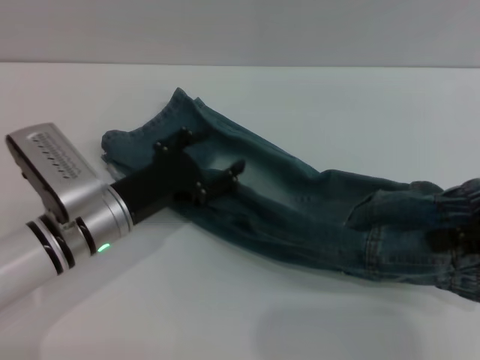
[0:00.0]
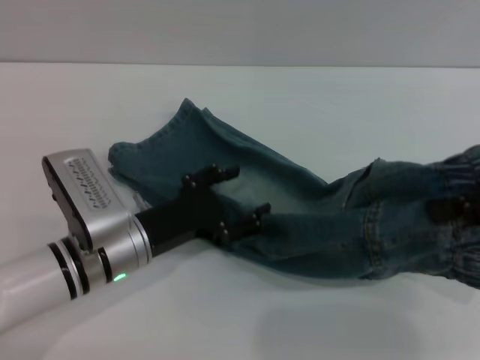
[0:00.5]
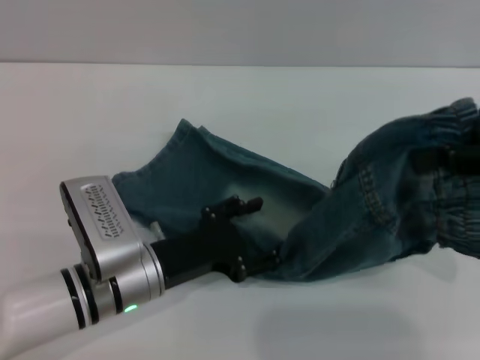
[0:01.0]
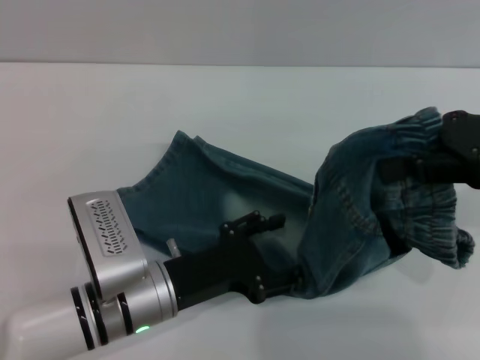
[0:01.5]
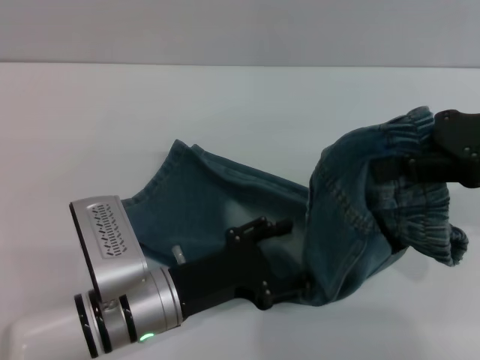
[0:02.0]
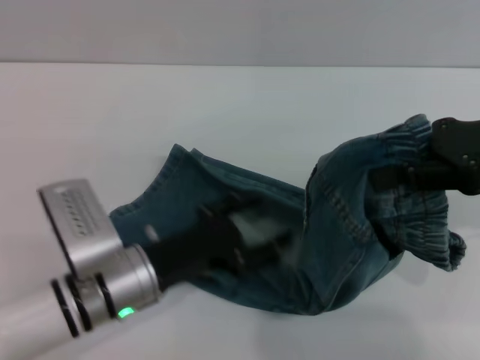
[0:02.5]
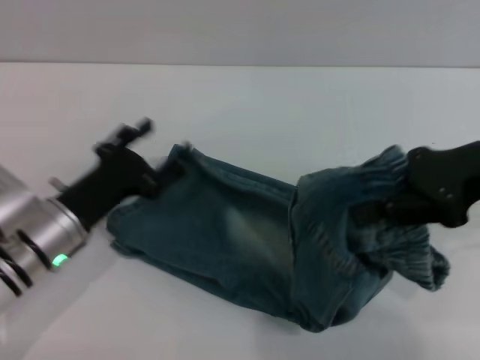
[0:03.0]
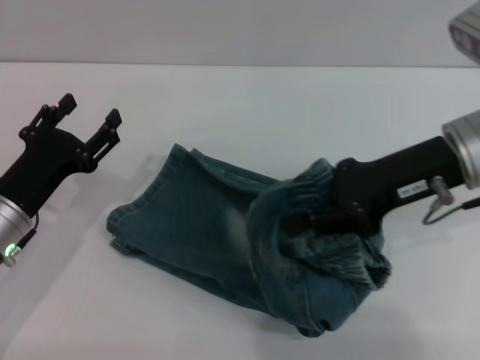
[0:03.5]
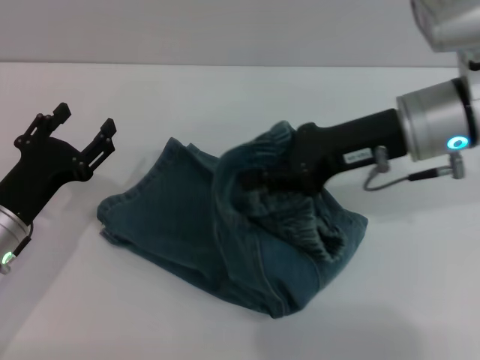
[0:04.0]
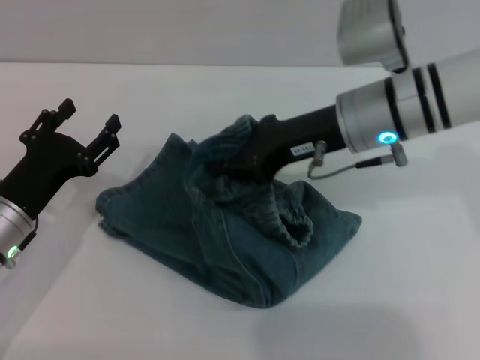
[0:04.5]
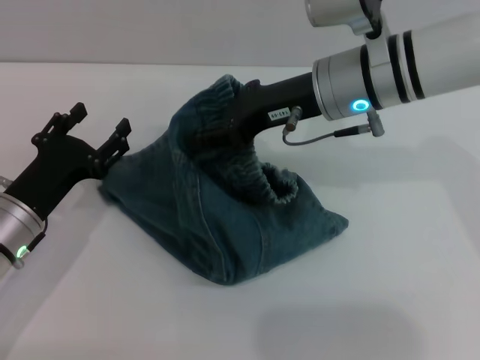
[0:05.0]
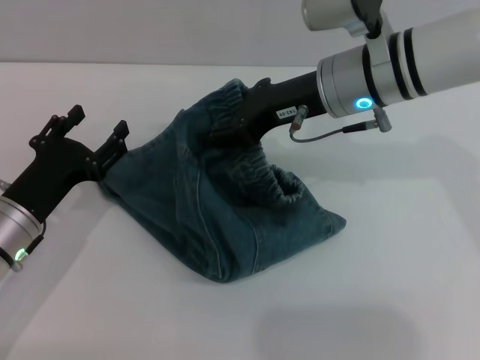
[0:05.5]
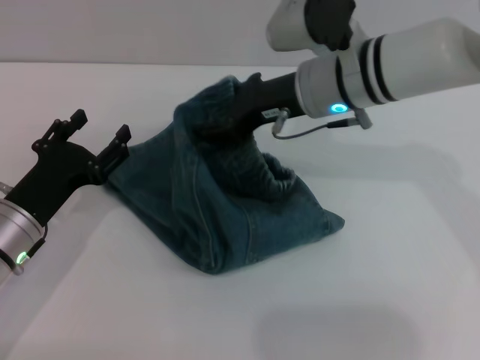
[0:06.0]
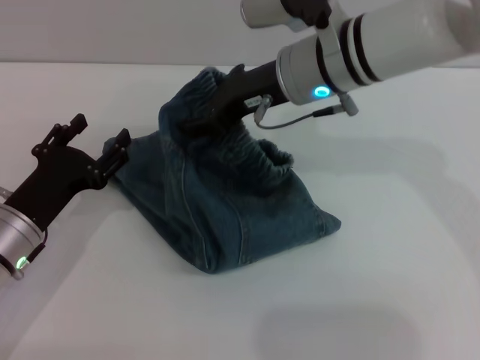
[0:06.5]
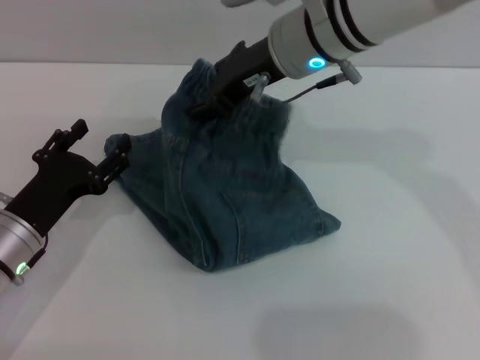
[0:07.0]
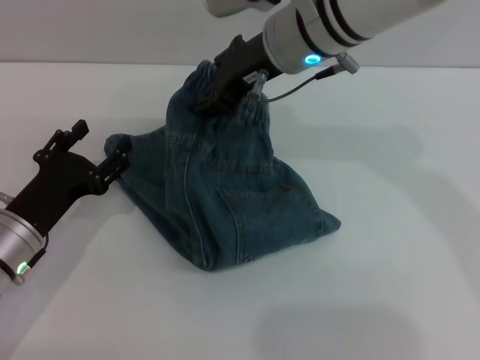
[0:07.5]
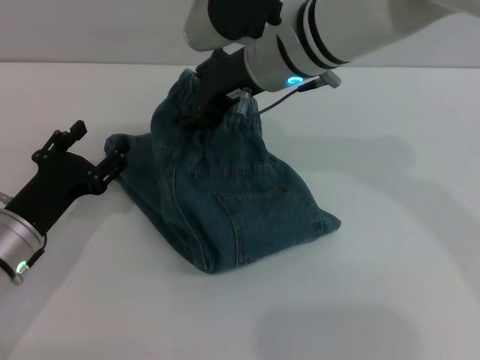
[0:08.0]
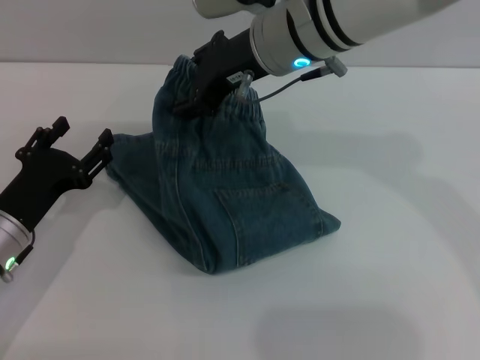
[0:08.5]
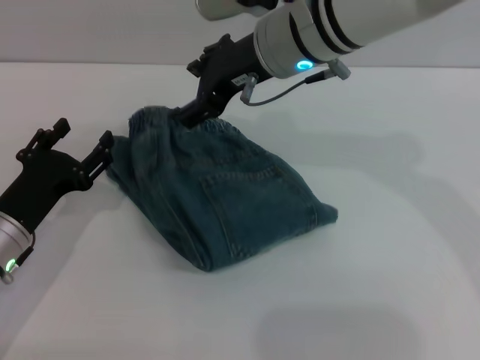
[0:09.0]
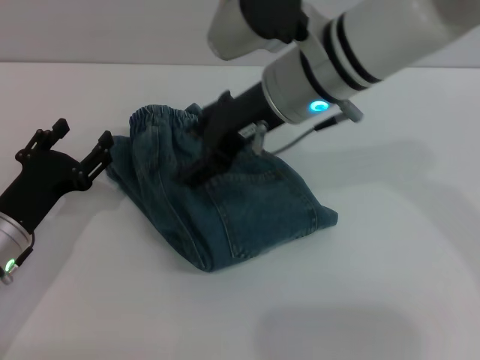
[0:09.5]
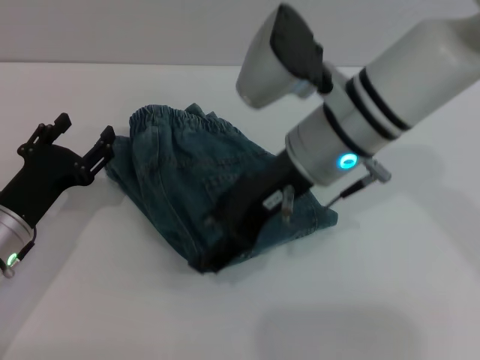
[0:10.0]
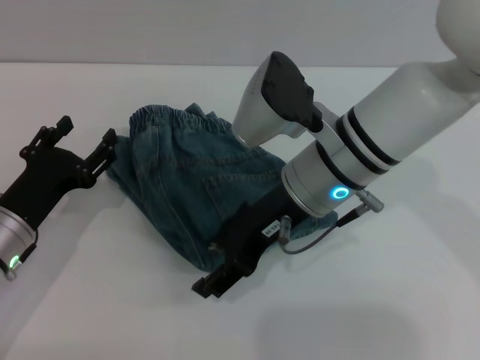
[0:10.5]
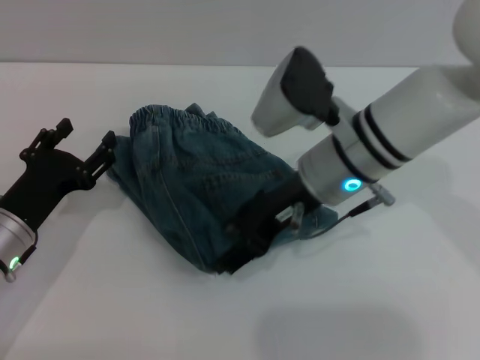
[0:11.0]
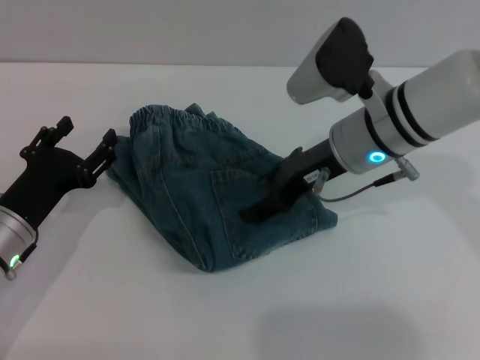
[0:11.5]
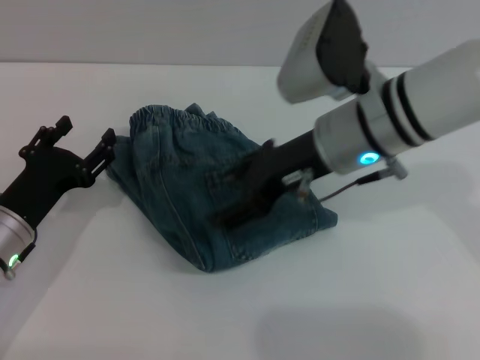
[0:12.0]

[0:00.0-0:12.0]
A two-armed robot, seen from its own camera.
Step, 0.0 to 9.0 s: Fold the pants from right to left with the right gripper.
0.0 to 2.0 s: The right gripper changes place by approximately 5 cm; the left gripper shifts roughly 5 cm backward.
2.0 to 4.0 s: The grippers both shift to the left by some 10 cm.
4.0 to 6.0 s: The right gripper shifts approximately 10 cm to the left and forward, and opens.
6.0 to 8.0 s: The right gripper shifts roughly 5 cm to the left.
8.0 to 10.0 s: The right gripper travels backward by some 5 cm, and opens its fingers.

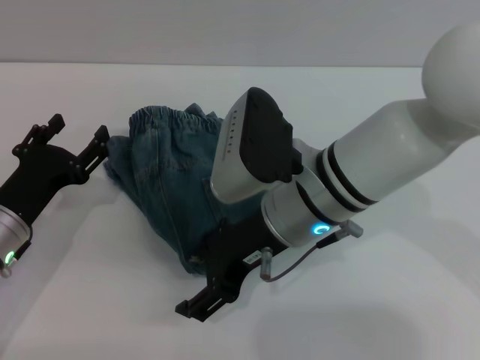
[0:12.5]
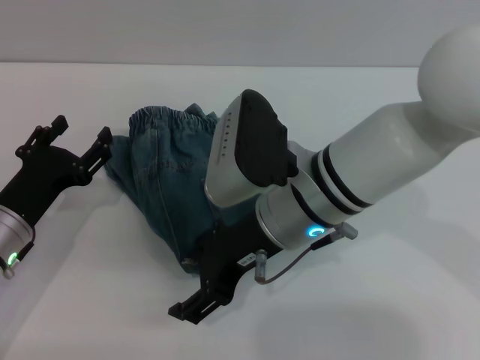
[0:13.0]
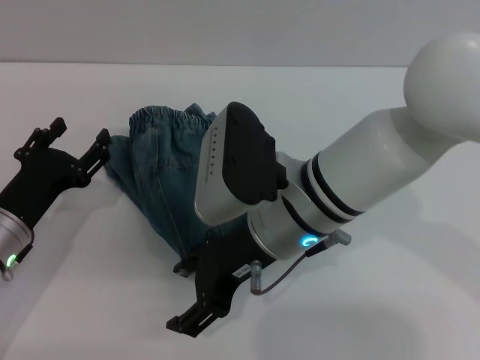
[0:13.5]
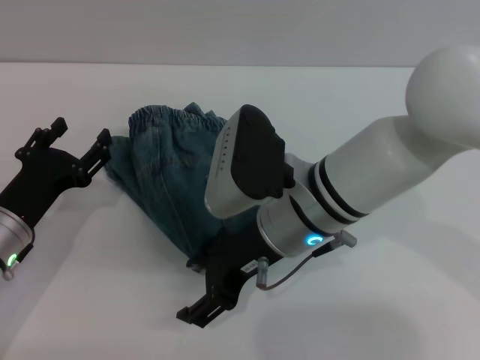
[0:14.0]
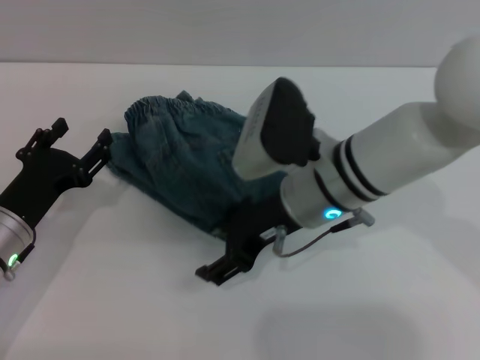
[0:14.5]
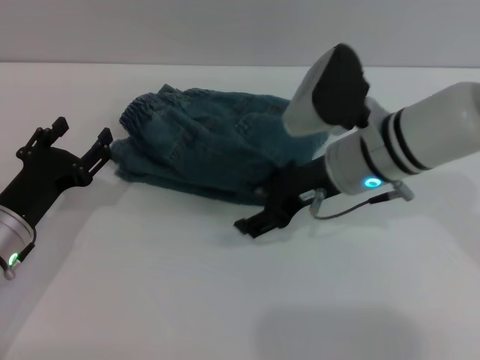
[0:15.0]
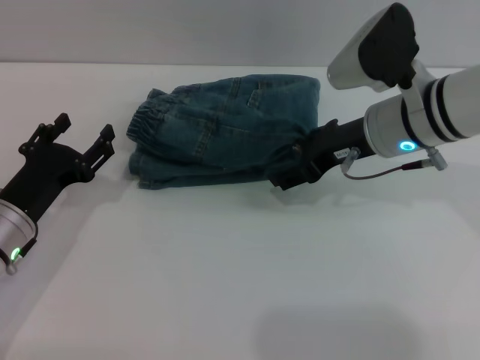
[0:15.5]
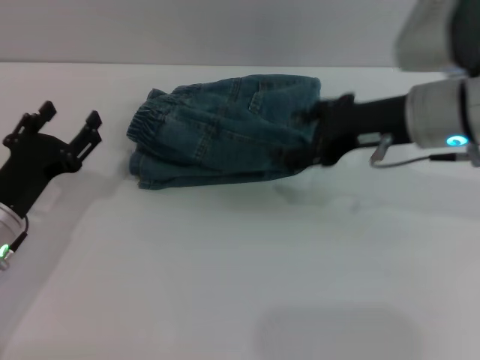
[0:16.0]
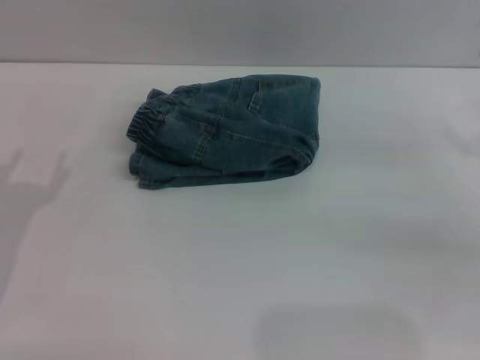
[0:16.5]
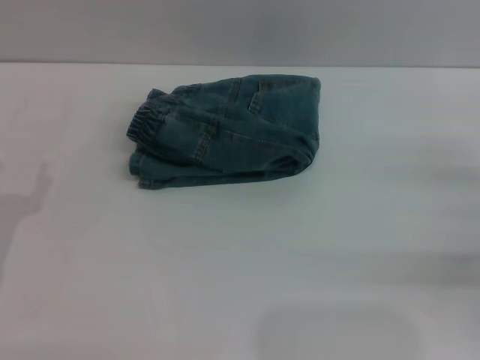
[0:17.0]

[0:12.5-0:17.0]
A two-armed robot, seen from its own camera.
Step, 12.5 to 15.5 s: Place the folded trousers onto the center area with the right grippers.
12.5 to 14.5 s: The grippers move only a little.
14.5 to 17.0 s: The left gripper travels backward and to the left by roughly 10 cm, while the right gripper goes some 30 cm to the right.

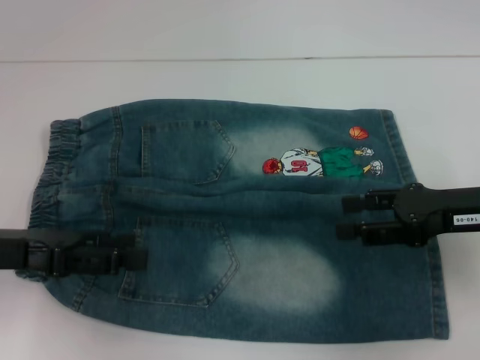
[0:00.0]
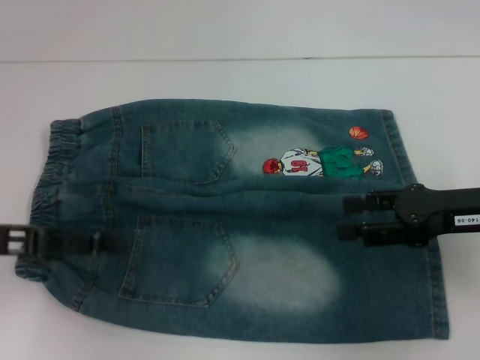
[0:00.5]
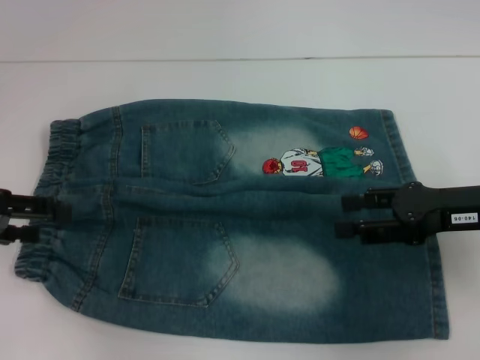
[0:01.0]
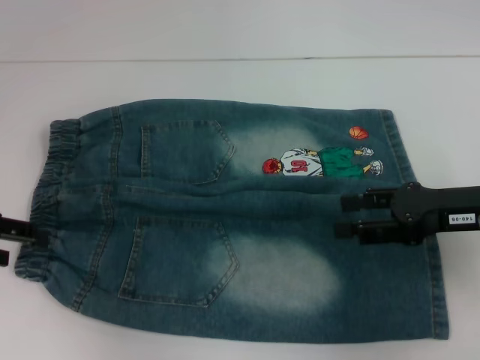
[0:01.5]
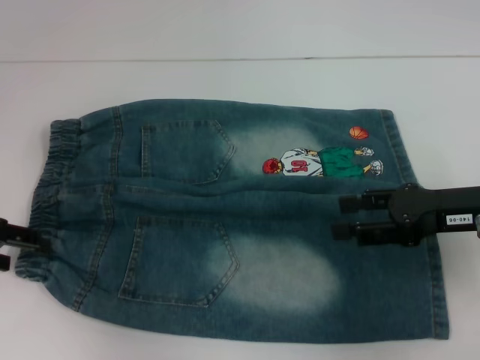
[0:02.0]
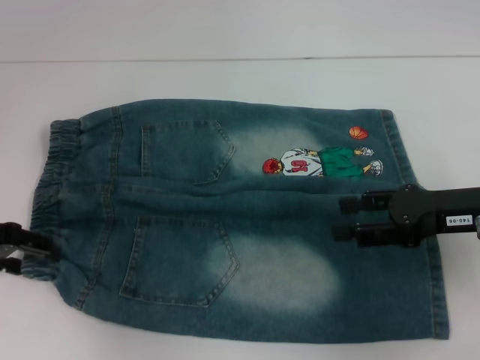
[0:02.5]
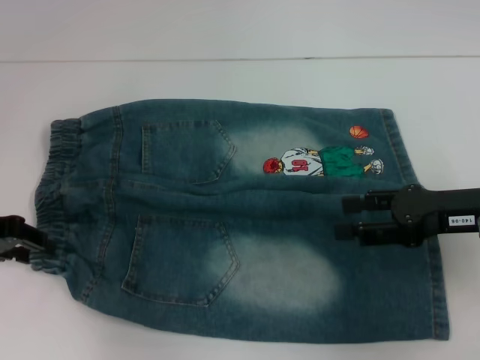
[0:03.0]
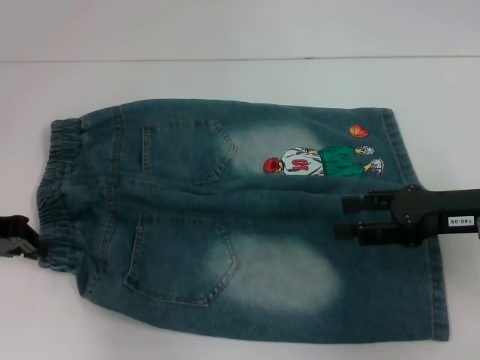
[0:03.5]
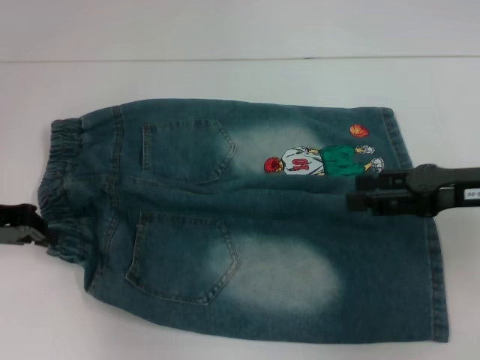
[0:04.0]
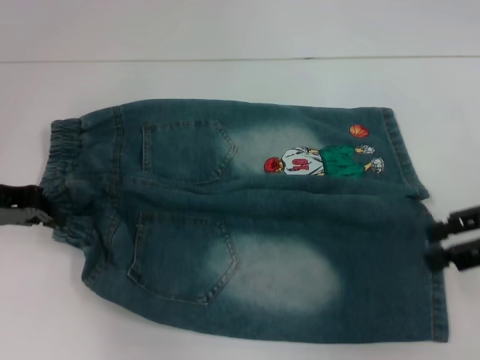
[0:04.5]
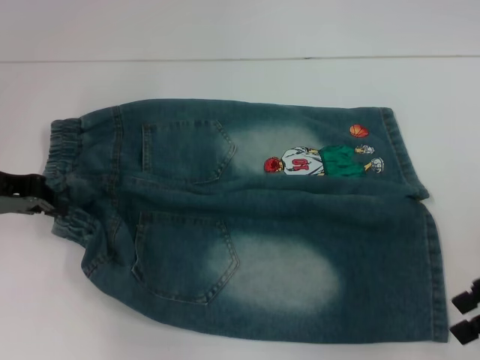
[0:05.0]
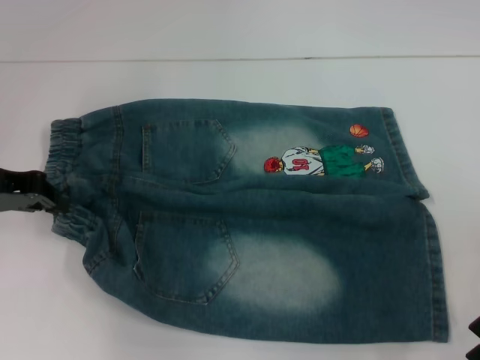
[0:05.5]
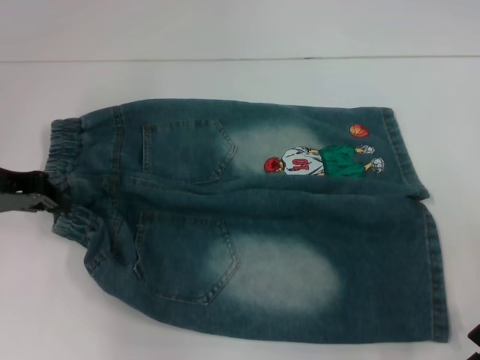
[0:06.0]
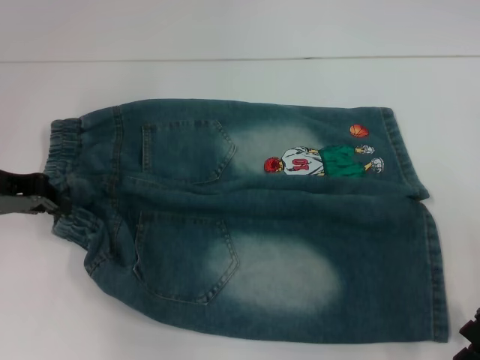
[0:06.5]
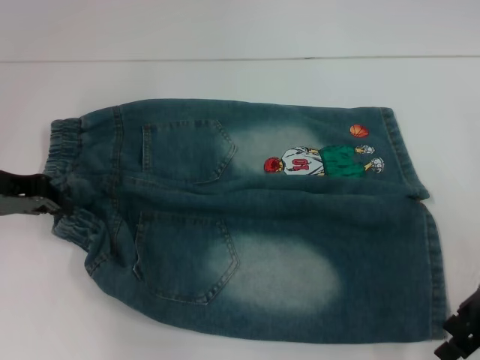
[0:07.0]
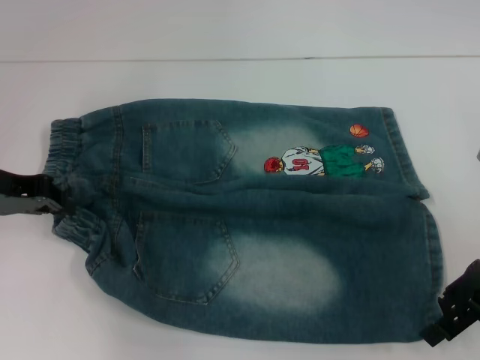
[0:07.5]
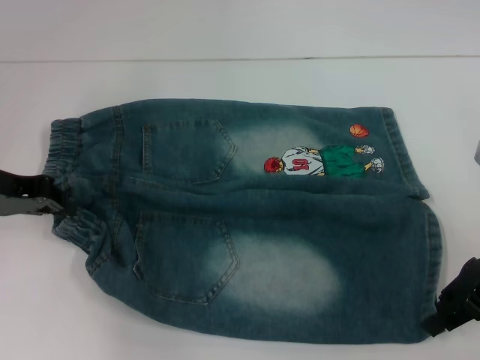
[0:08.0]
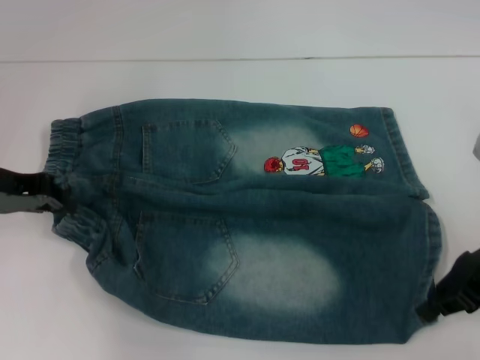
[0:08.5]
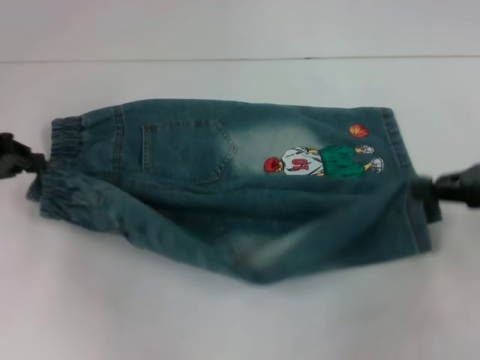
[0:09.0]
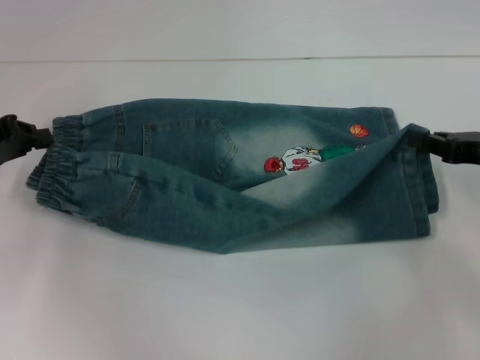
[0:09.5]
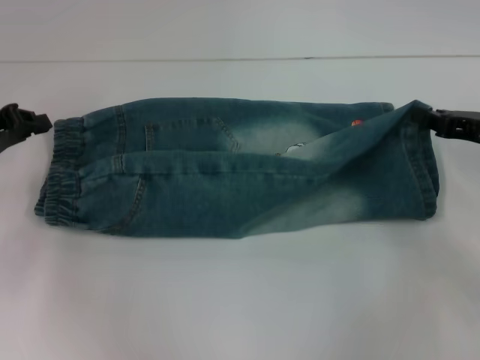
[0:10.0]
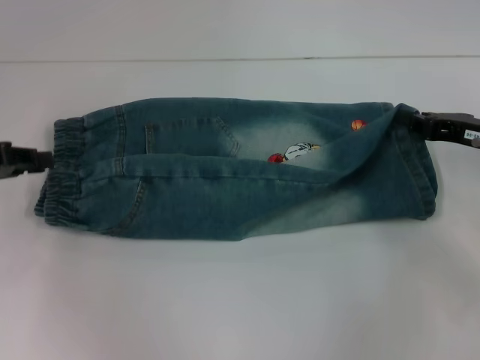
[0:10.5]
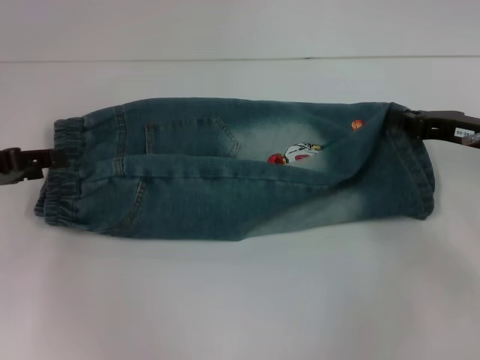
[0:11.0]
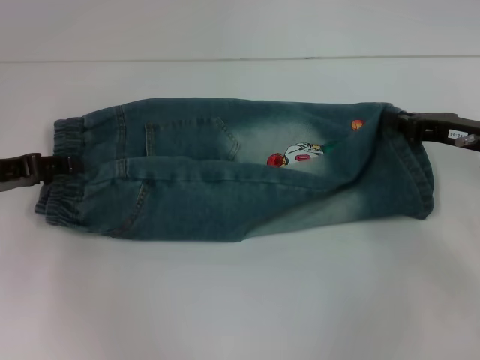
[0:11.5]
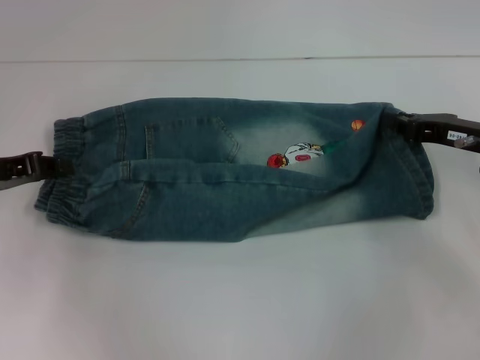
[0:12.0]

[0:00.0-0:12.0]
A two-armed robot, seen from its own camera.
Step, 0.0 to 3.5 s: Hold the lower left waistband with your left hand.
Step, 4.0 to 7.5 s: Grab the lower right pant leg with your right hand.
0.0 to 2.0 s: The left gripper goes roughly 5 cm to the left.
2.0 to 4.0 s: The left gripper closes its fingers.
6.0 to 8.0 s: The grippers make only small movements.
8.0 to 10.0 s: The right gripper shifts by approximately 5 cm, and closes its fingers.
10.0 to 12.0 s: The left gripper opens its fingers.
